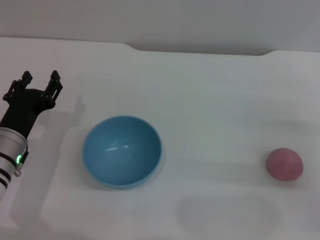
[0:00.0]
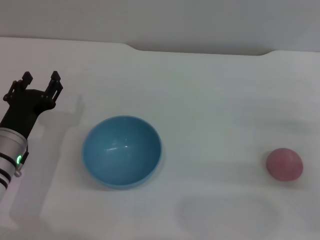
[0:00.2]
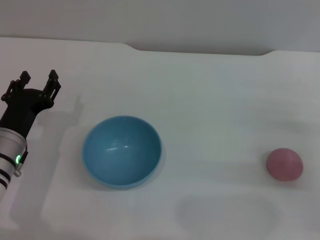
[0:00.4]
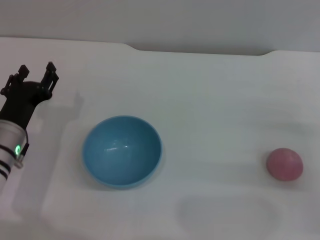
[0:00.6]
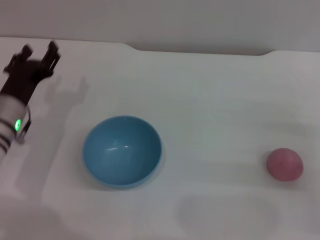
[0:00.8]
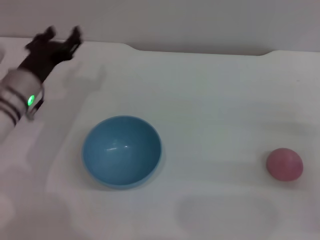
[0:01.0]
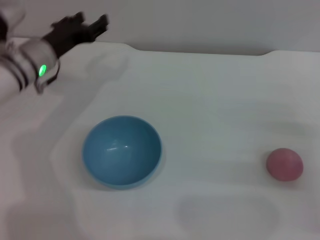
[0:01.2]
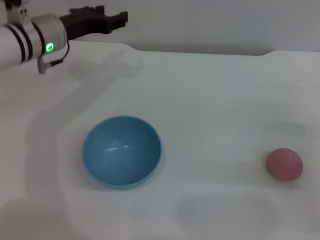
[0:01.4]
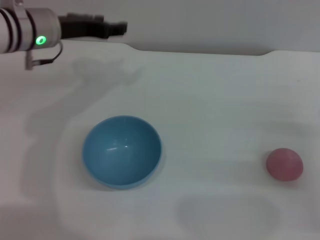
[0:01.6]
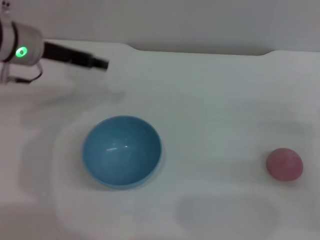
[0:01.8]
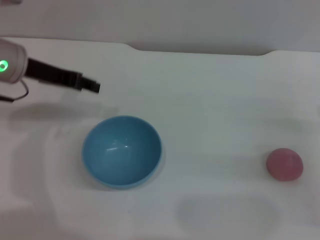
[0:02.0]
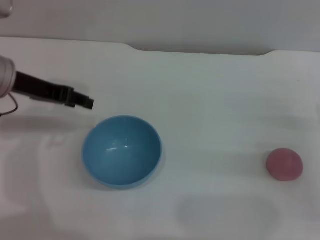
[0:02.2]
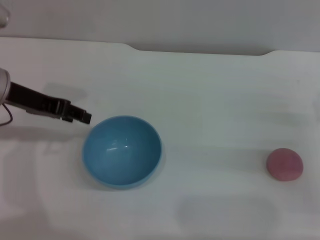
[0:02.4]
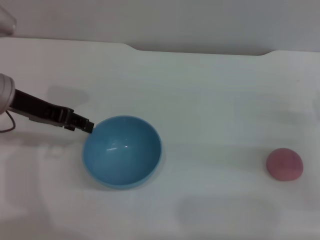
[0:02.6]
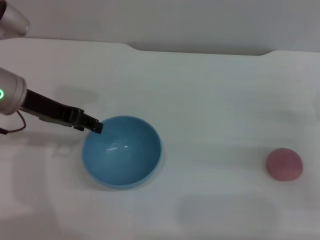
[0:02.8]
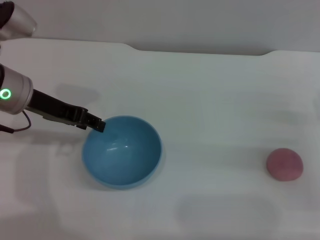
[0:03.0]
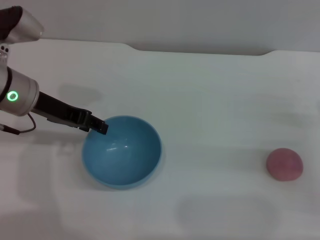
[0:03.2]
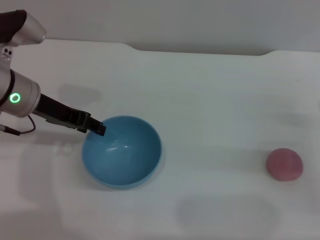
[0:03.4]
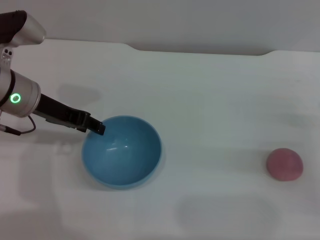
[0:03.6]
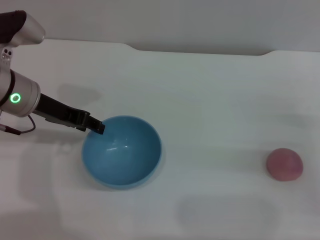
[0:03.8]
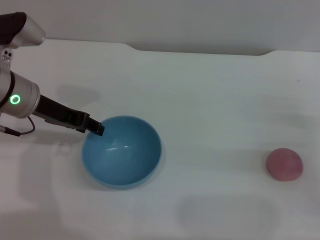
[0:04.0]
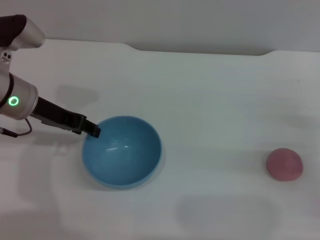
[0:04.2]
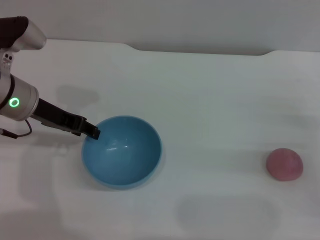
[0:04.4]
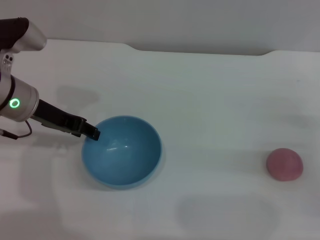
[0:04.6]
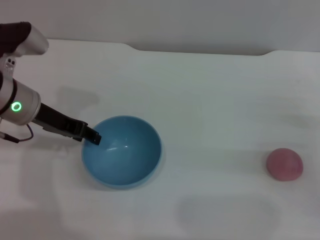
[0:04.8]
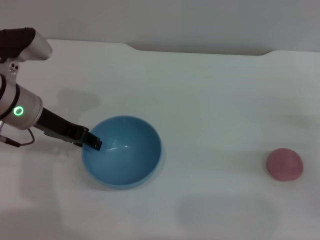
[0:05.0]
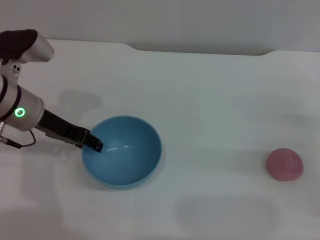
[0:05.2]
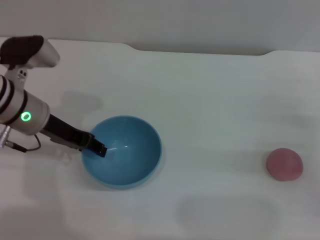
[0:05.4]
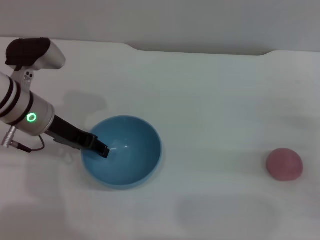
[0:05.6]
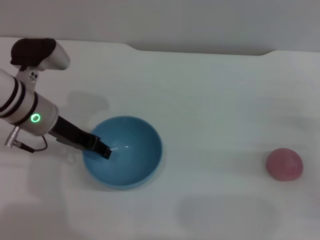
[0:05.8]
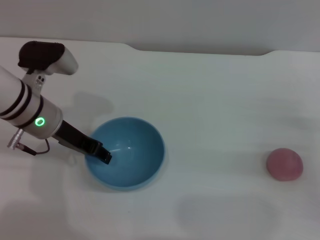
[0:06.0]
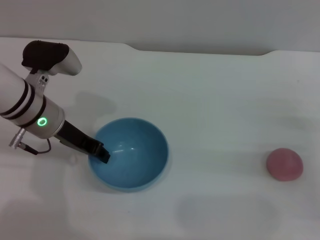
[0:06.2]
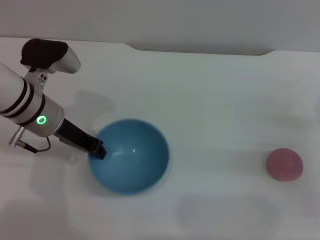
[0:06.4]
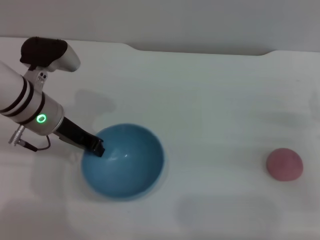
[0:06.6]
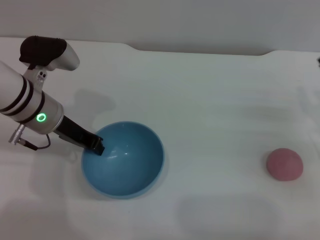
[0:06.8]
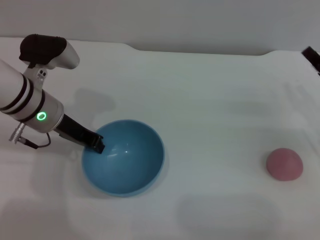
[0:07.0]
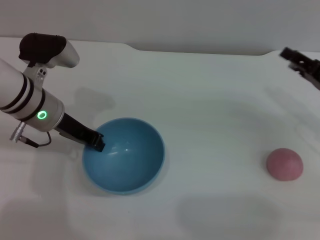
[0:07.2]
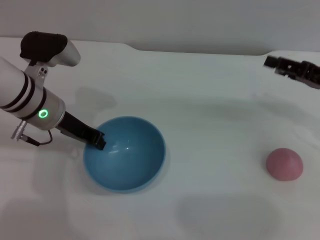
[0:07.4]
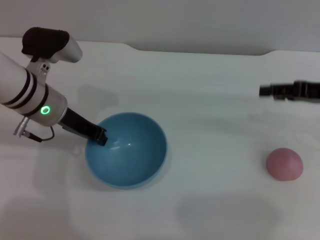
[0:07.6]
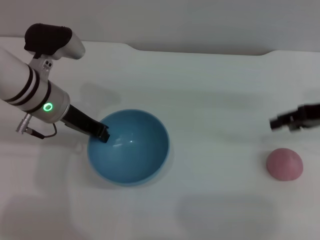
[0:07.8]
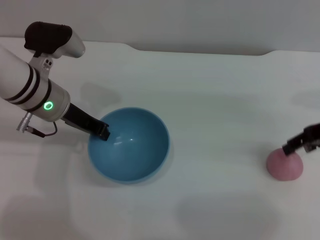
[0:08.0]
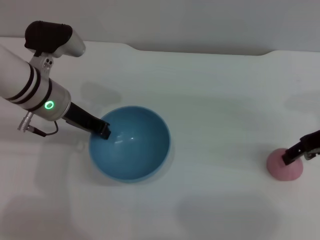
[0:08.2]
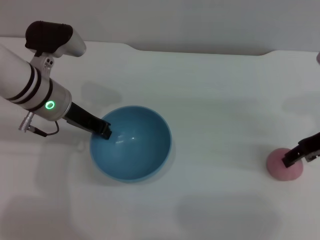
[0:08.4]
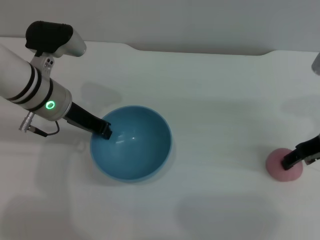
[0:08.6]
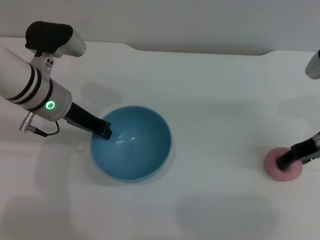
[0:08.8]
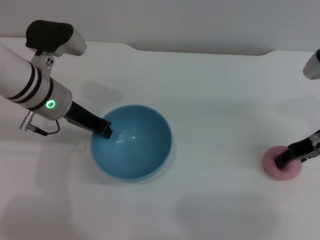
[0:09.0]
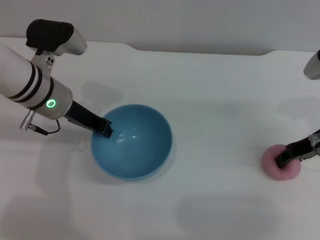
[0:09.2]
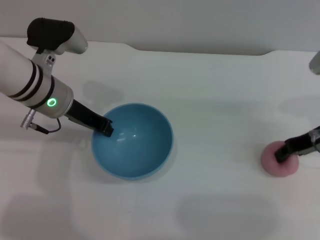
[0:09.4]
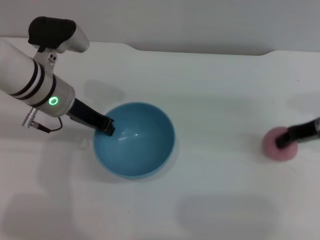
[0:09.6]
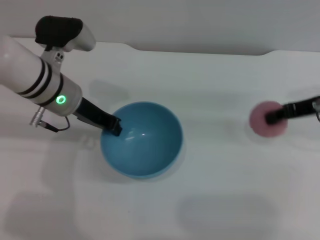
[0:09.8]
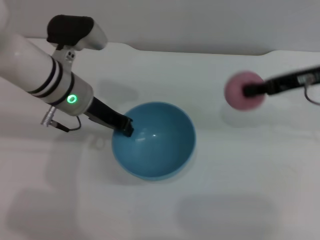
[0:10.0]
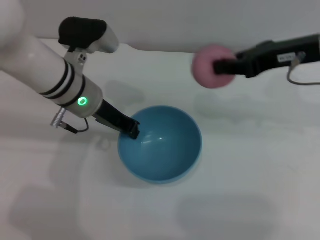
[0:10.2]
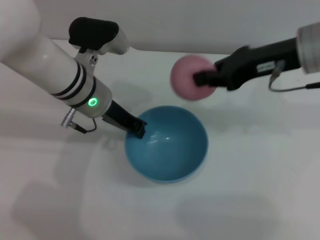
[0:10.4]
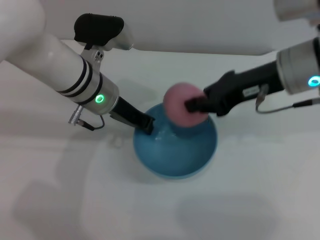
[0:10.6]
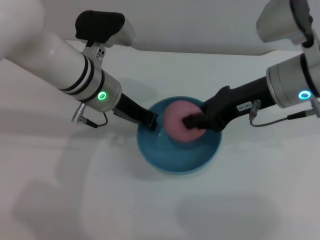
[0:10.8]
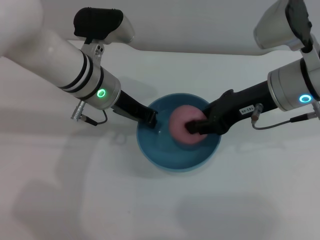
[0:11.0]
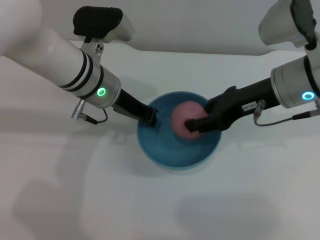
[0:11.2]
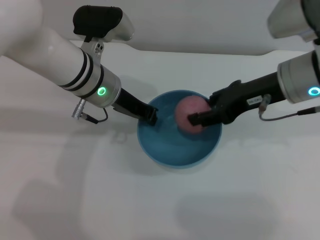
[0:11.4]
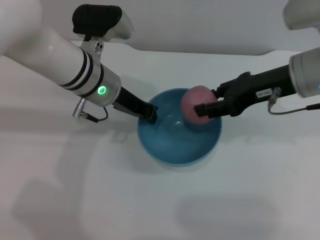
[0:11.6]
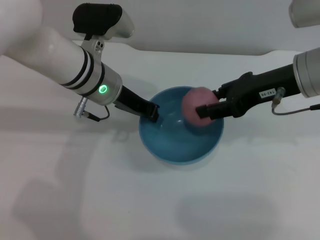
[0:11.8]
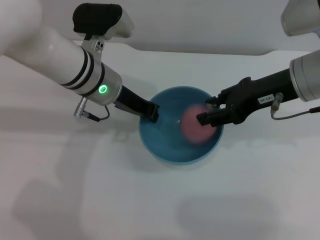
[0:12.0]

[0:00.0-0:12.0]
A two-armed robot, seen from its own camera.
Task of the whole recording: put the peach into the blue bowl and pour it out repeatedly.
Step, 0:00.0 to 0:08.2: Pick up the bowl with the left gripper.
Step, 0:08.6 to 0:09.8: Pick up the peach with the right gripper.
0:00.0 to 0:01.6: The left gripper shifts approximately 20 cm upward and forward.
0:01.6 to 0:03.0: The left gripper heads backward, covering some 5 cm.
0:03.0 to 0:06.0: There are only small adjustments of the grippers.
0:06.0 to 0:07.6: The right gripper travels upward and forward by approximately 15 cm. The left gripper closes.
0:07.6 to 0:09.0: The right gripper ends up some 5 cm from where it was.
0:09.0 to 0:10.4: The left gripper is displaced to the right by roughly 5 cm. The right gripper is displaced upward and to the left by roughly 15 cm, and closes its fingers.
0:10.4 to 0:12.0: The right gripper opens.

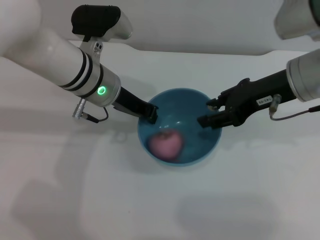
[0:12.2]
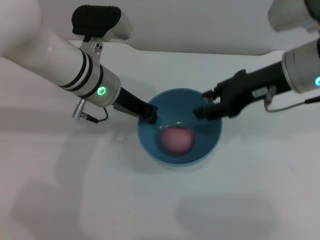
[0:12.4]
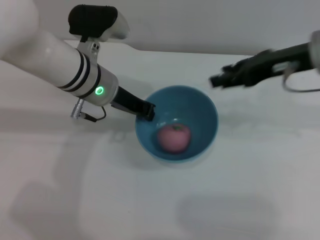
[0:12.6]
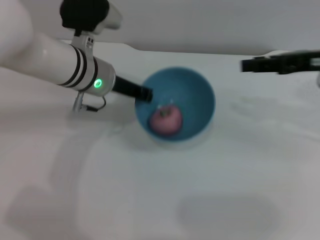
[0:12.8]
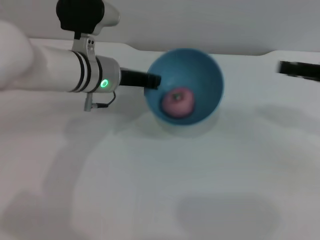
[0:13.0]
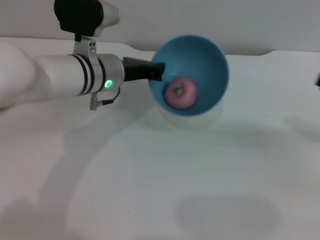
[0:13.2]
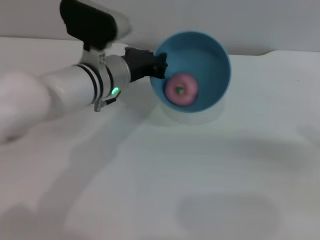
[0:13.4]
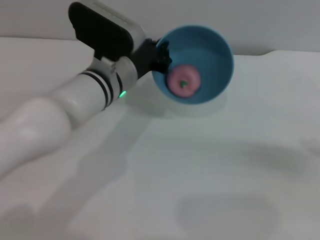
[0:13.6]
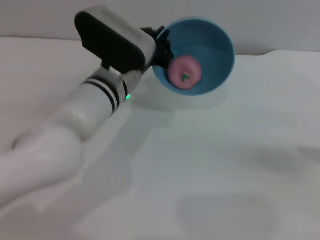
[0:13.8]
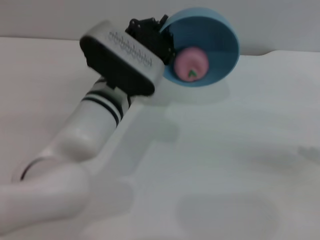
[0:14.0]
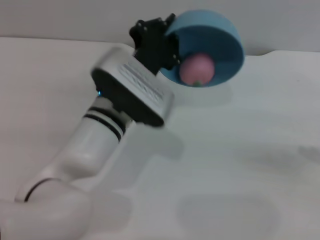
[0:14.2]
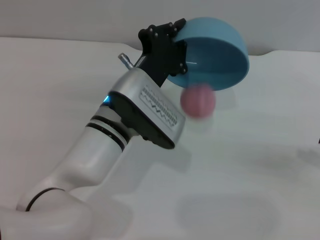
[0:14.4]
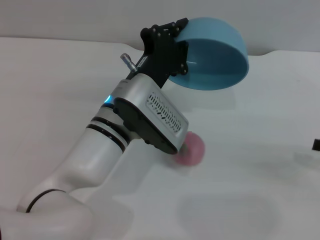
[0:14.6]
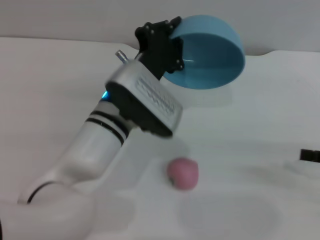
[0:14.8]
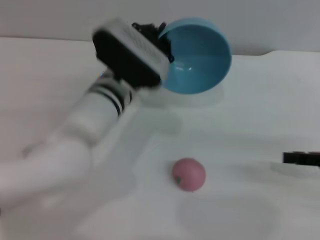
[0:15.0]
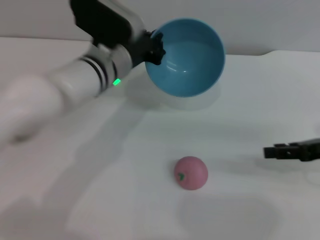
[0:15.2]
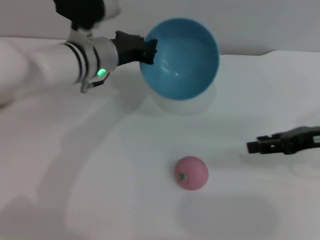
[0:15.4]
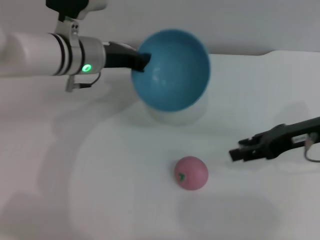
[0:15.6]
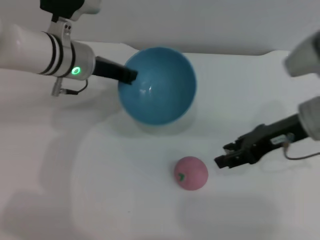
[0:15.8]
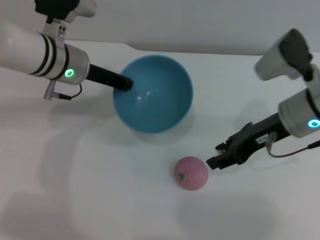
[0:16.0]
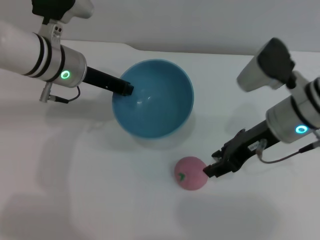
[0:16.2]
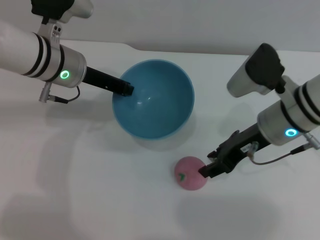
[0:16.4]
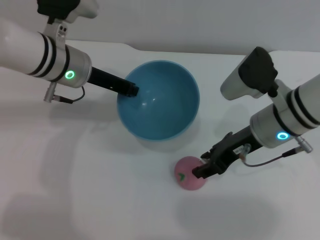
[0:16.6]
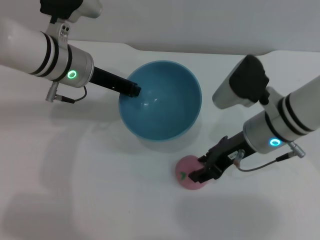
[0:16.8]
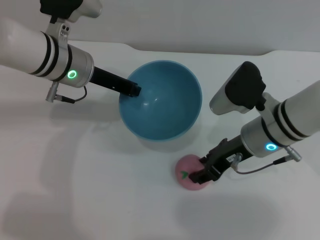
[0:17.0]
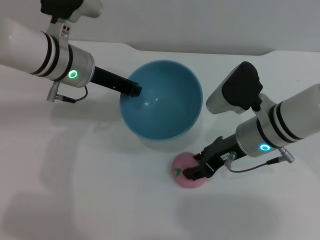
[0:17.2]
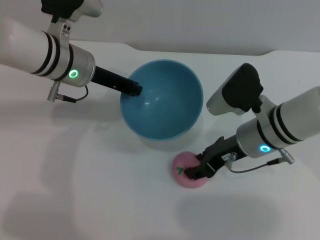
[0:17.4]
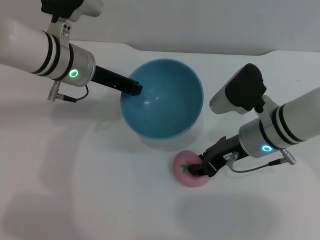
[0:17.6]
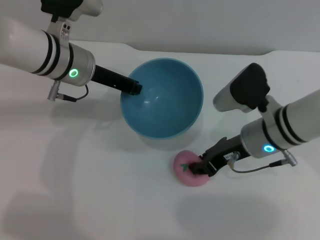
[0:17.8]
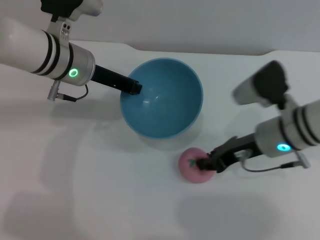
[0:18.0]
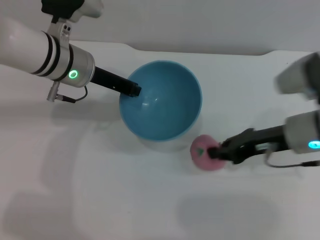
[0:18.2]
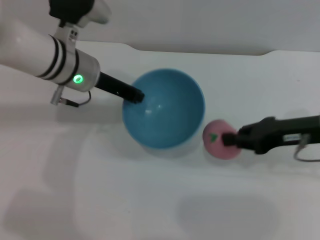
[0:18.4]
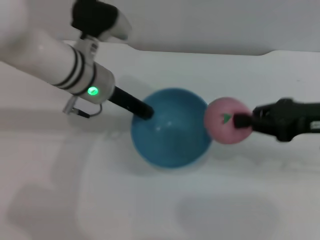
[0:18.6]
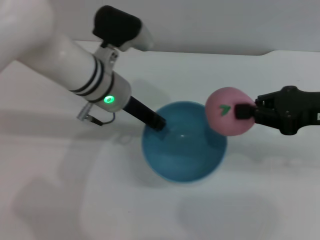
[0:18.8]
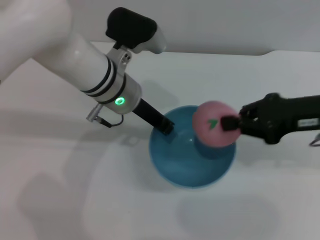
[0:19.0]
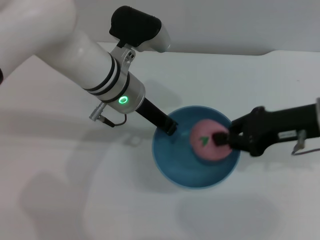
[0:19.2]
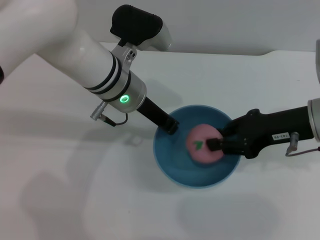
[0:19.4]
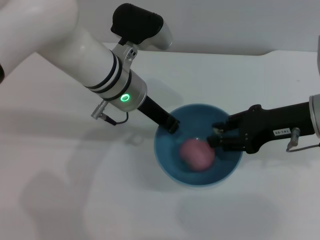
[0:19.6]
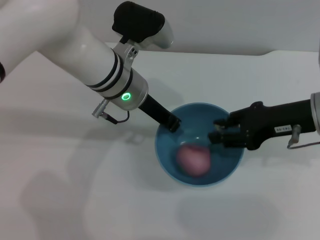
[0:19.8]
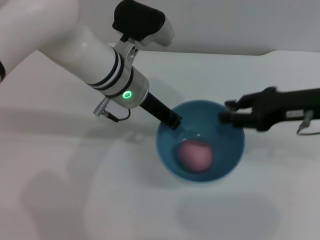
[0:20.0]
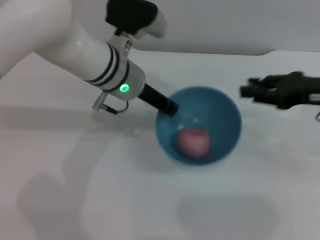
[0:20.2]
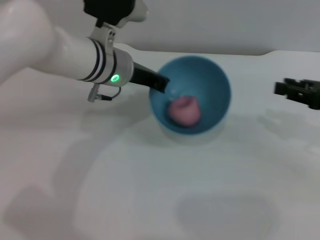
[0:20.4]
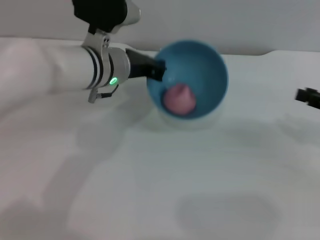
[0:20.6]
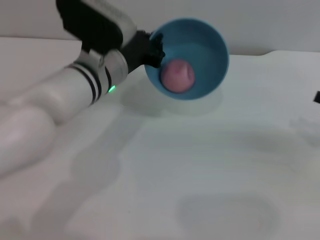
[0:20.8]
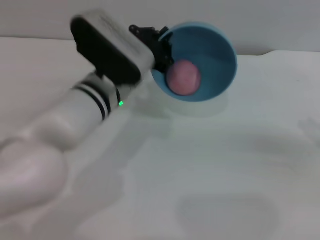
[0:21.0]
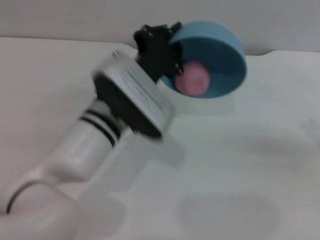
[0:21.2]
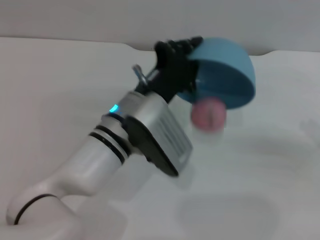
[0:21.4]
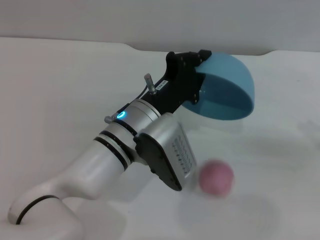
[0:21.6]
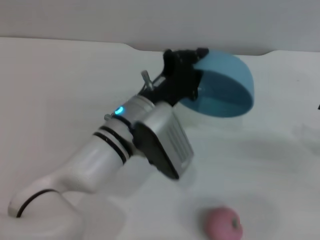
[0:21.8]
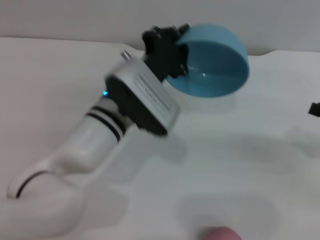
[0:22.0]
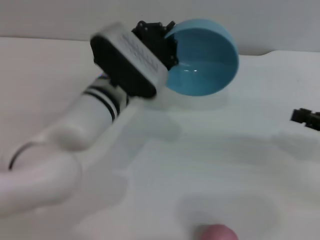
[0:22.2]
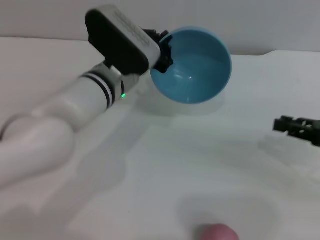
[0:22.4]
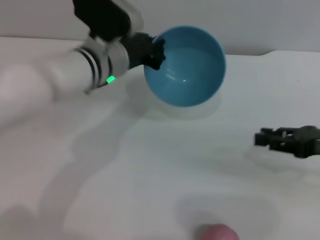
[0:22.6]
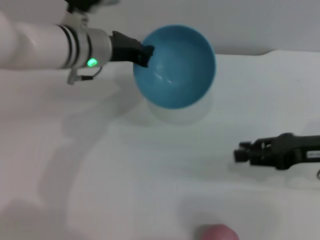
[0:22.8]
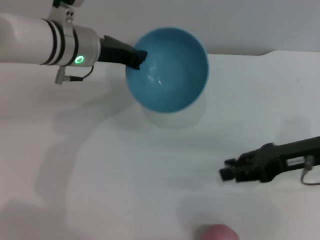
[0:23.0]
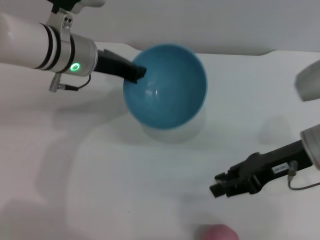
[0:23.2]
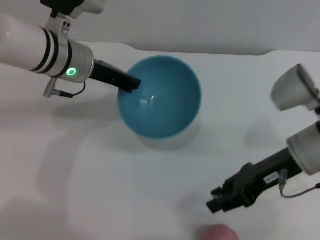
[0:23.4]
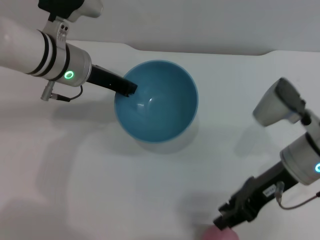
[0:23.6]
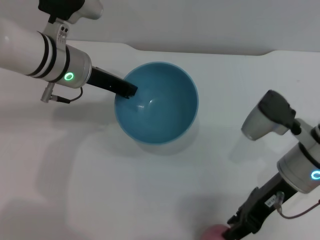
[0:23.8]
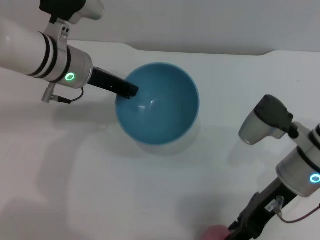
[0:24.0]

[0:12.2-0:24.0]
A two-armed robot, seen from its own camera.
Task of the whole recording: put the peach into the blue bowl and pour it out repeatedly.
Step, 0:12.6 to 0:14.6: Pour the peach out of bowl.
Step, 0:14.8 to 0:18.4: Pick up the peach with the right gripper.
Step, 0:18.6 to 0:20.0: Place the peach into the bowl.
Step, 0:20.2 to 0:21.8: Pour the peach out of bowl.
0:12.2 to 0:13.6: The right gripper shifts some 25 cm to the right and backward.
0:13.6 to 0:15.2: The left gripper goes backward and returns, some 5 cm each way, while the right gripper heads to the left and forward, covering about 10 cm.
0:15.2 to 0:16.6: The right gripper heads to the left, covering some 15 cm; the left gripper goes approximately 5 cm to the left.
0:16.6 to 0:18.2: The right gripper is displaced to the right by some 5 cm, and closes its fingers.
0:18.2 to 0:19.6: The left gripper is displaced to the right by roughly 10 cm.
0:19.6 to 0:21.0: The right gripper travels to the right by some 15 cm.
0:21.0 to 0:22.6: The left gripper moves roughly 5 cm; the right gripper moves to the left, some 10 cm.
0:22.6 to 0:24.0: The right gripper goes about 15 cm to the left. The left gripper ends up roughly 5 cm from where it was.
